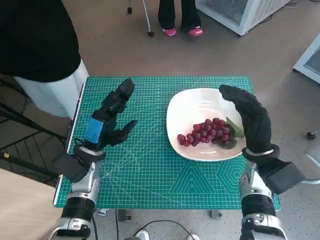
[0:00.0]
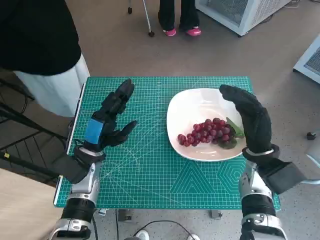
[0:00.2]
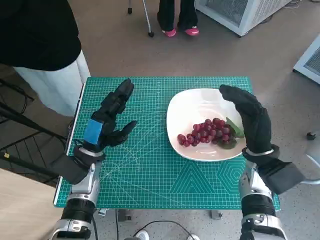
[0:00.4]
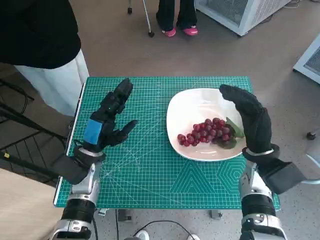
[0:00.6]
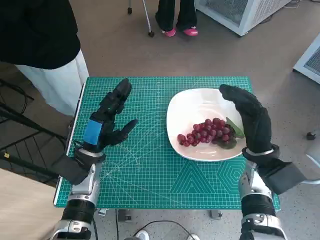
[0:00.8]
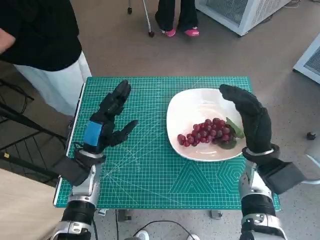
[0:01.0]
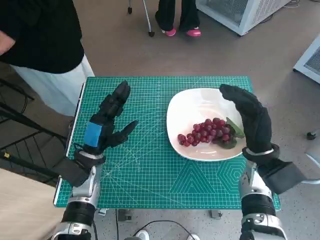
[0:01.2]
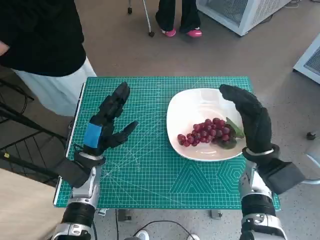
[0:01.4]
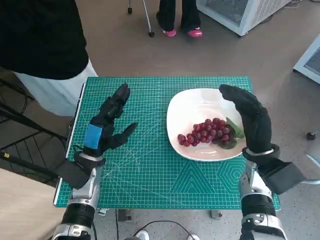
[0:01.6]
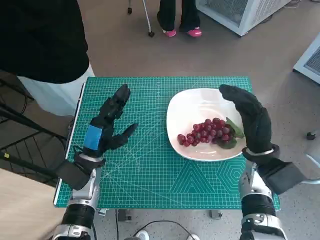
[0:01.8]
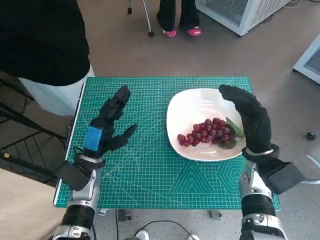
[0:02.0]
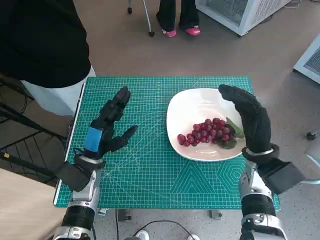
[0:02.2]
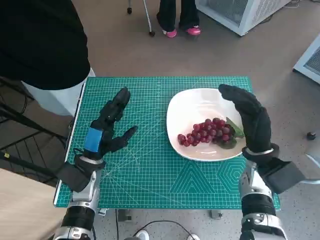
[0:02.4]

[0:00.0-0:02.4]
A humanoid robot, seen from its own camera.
Task of the whole recording: Pick up the grapes and put them on the plate.
0:00.0 to 0:01.2: The two hands keep their place.
0:01.2 to 0:02.4: Neither hand changes place.

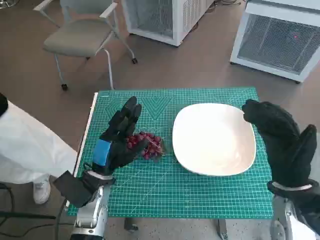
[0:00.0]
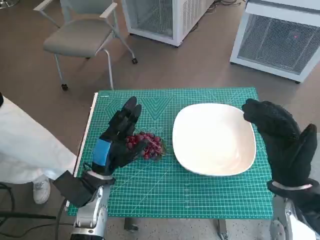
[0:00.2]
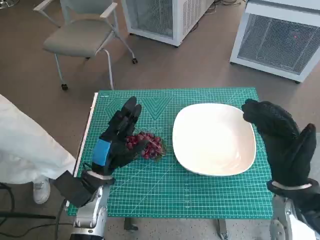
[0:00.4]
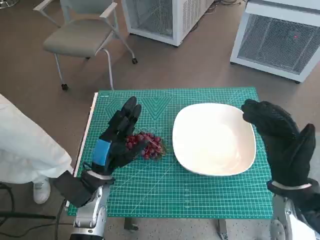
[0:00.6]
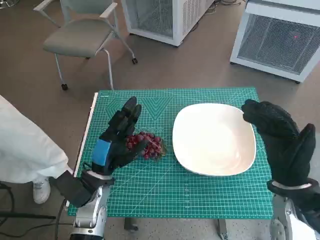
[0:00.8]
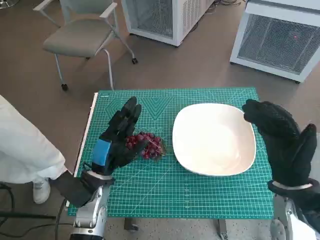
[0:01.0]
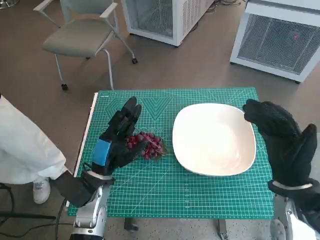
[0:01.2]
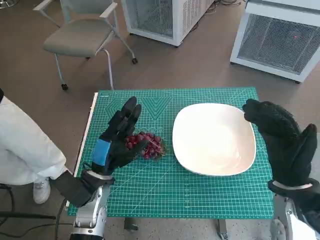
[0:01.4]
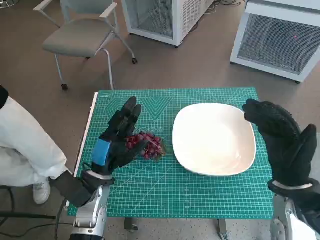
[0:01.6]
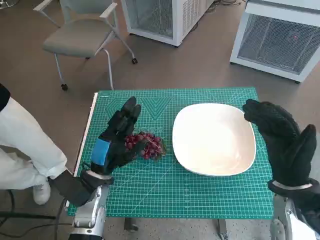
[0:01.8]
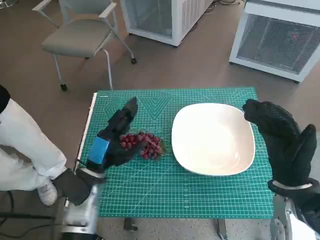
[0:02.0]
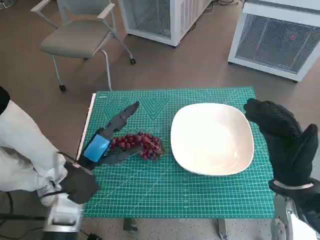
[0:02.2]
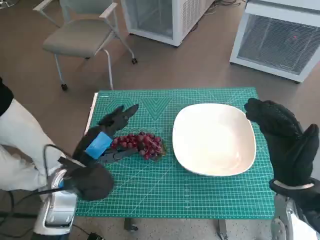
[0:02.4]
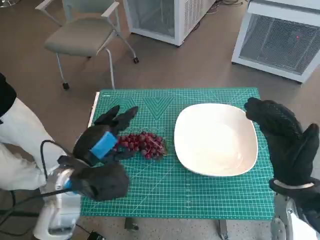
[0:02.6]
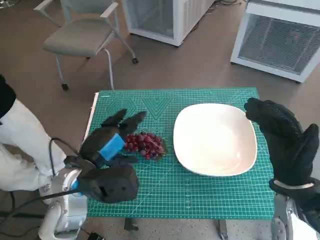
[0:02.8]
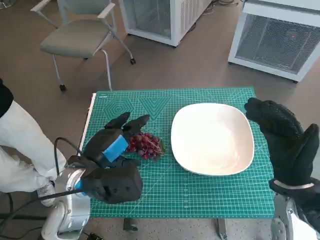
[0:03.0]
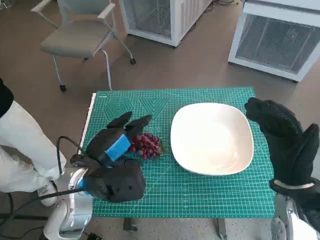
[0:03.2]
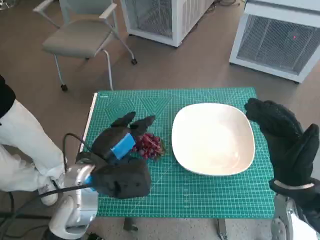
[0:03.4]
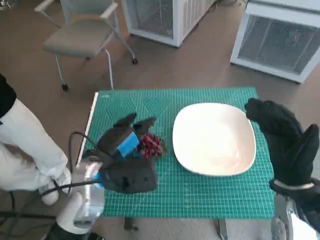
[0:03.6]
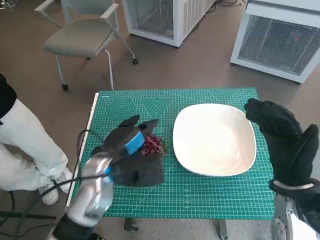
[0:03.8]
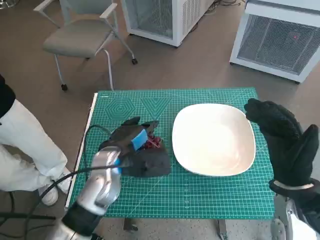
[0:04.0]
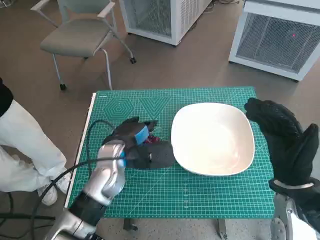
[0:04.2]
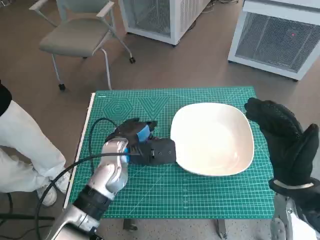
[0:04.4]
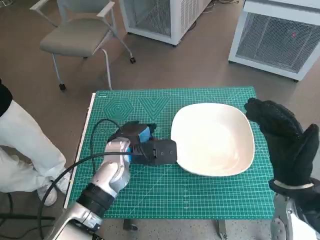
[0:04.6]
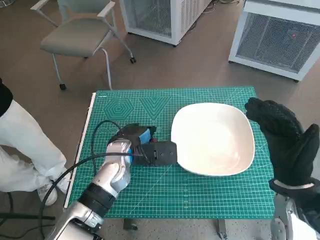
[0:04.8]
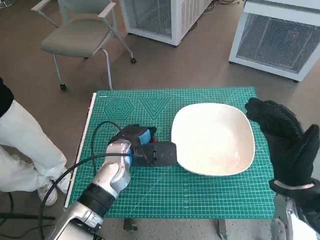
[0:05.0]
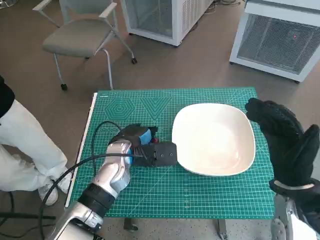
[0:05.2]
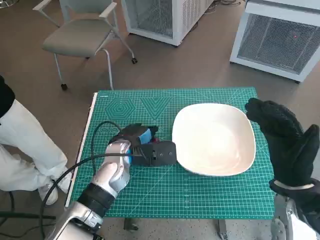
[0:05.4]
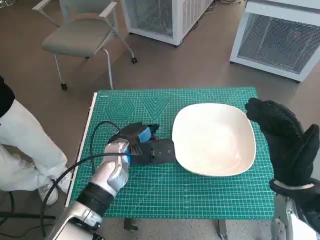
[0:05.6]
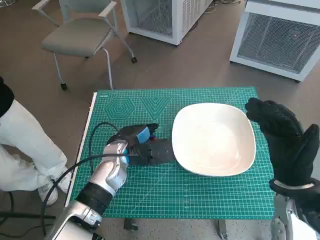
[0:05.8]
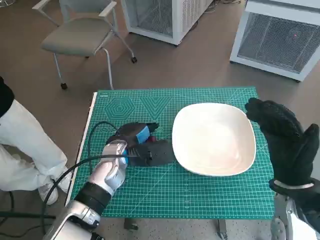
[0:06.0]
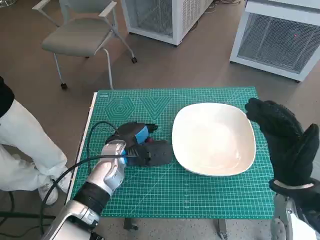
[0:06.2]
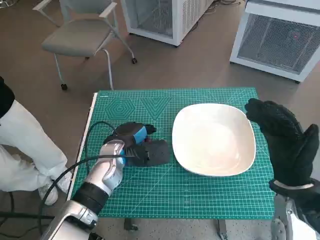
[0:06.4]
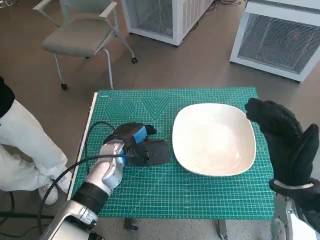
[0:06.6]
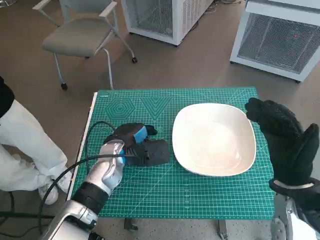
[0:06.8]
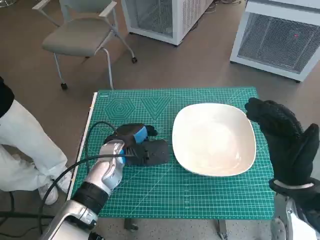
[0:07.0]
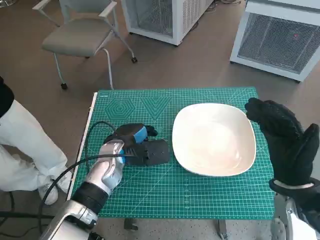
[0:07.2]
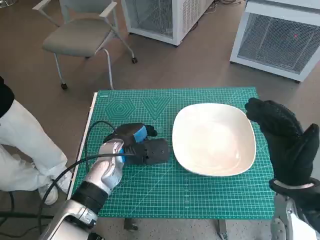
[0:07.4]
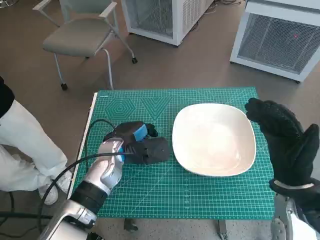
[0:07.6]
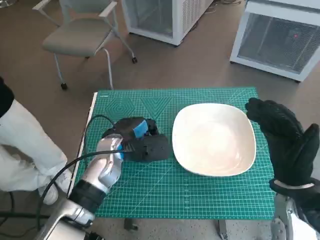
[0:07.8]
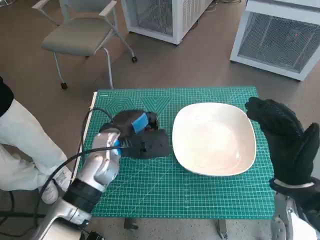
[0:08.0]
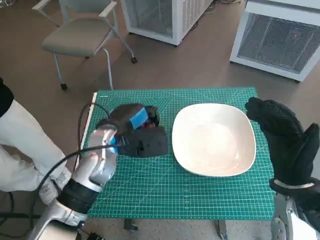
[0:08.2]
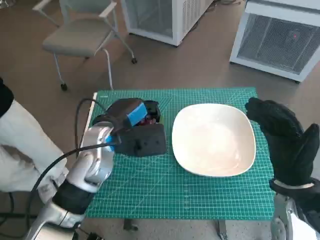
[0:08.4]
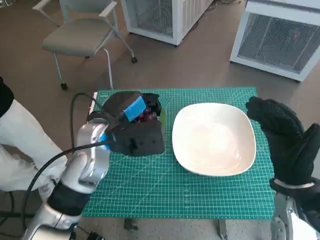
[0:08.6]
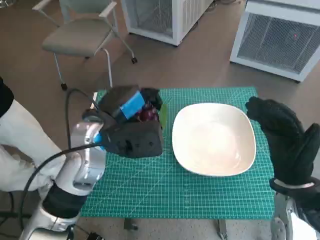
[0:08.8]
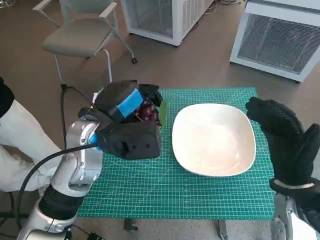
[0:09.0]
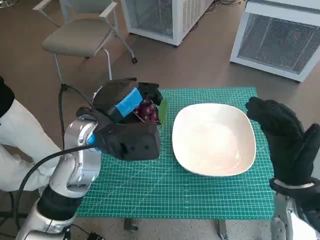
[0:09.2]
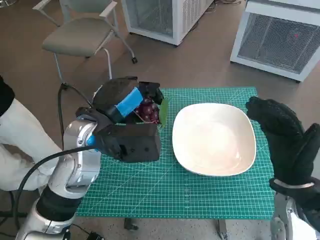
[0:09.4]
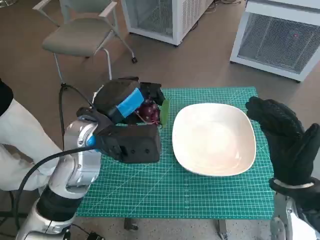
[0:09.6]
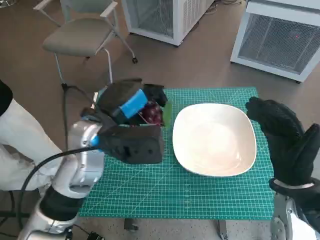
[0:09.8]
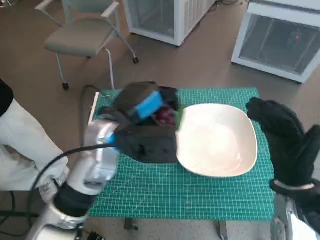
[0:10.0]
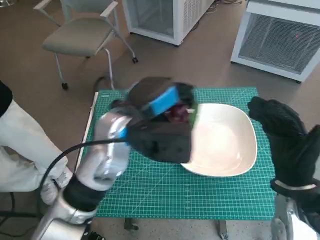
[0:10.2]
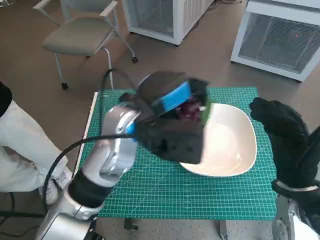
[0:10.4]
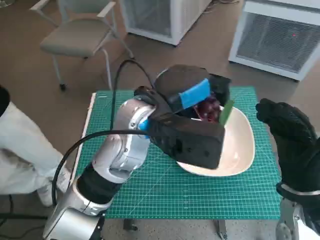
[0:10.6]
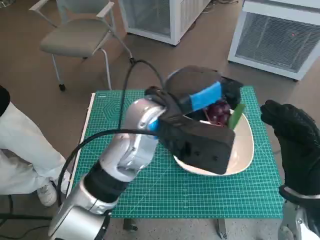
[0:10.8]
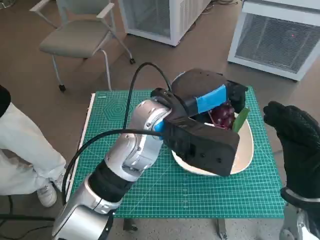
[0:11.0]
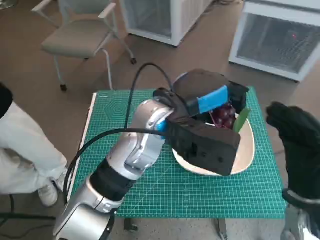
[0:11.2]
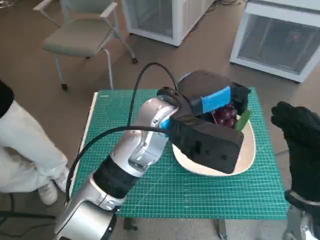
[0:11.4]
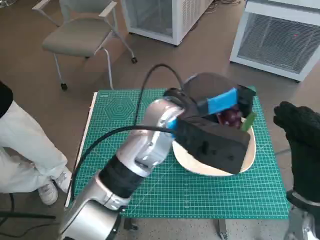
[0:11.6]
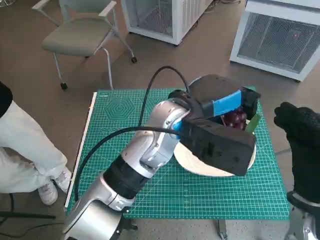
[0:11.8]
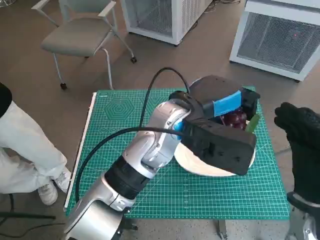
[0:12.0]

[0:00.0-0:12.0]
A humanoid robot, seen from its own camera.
Task of the whole recording: Pick up the grapes and put them on the plate.
Step, 0:00.0 to 0:07.2: Grasp the grapes with left hand.
0:01.6 to 0:03.0: The left hand travels upward by about 10 cm.
0:03.0 to 0:04.4: The left hand travels forward by about 10 cm.
0:04.4 to 0:06.0: The hands stay close to where they were, moving slightly.
0:06.0 to 0:07.6: Neither hand changes place.
0:07.6 to 0:09.0: The left hand goes roughly 10 cm upward.
0:09.0 to 0:10.4: The left hand heads to the right, covering approximately 5 cm.
0:10.4 to 0:12.0: The left hand is displaced to the right by about 5 cm.

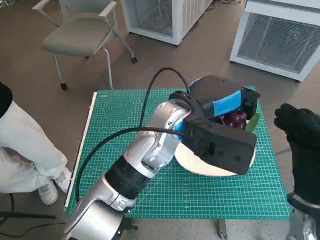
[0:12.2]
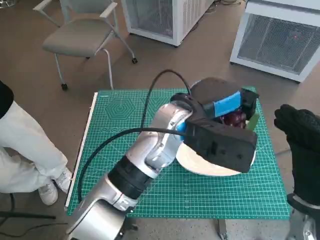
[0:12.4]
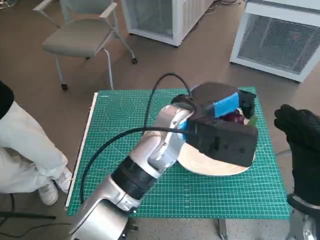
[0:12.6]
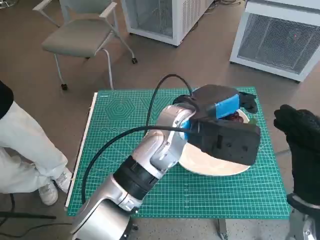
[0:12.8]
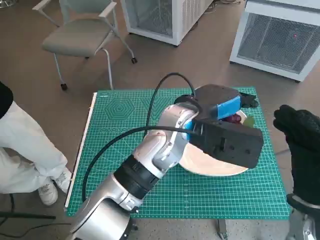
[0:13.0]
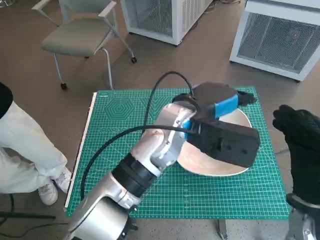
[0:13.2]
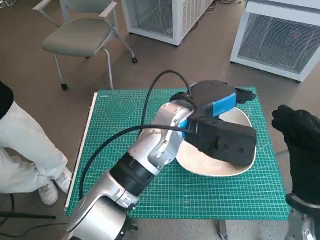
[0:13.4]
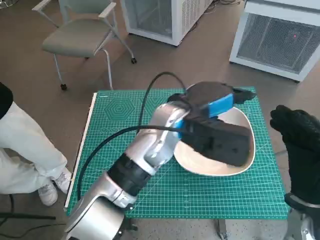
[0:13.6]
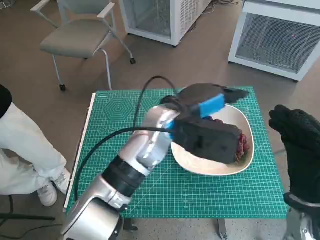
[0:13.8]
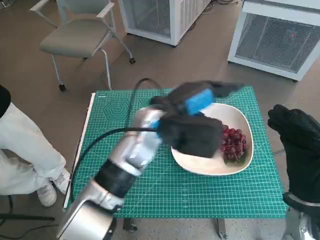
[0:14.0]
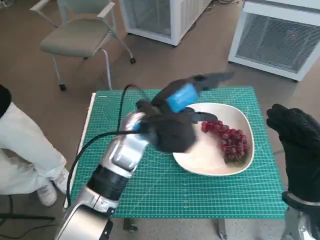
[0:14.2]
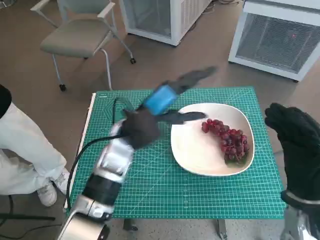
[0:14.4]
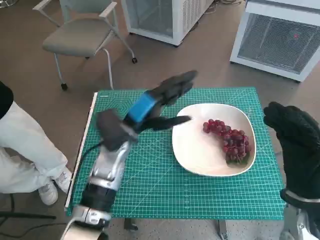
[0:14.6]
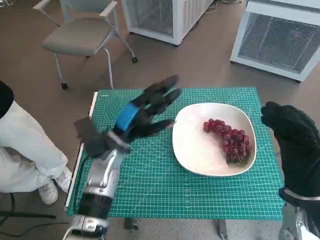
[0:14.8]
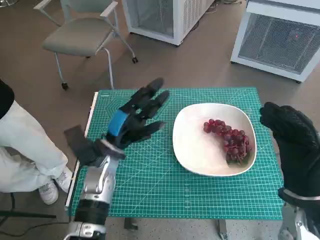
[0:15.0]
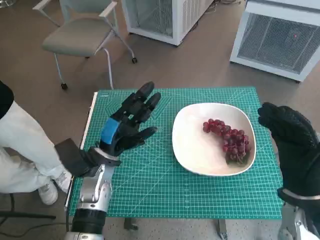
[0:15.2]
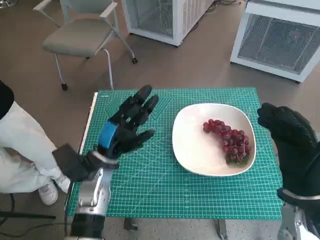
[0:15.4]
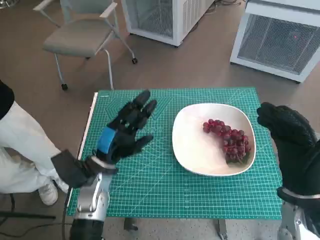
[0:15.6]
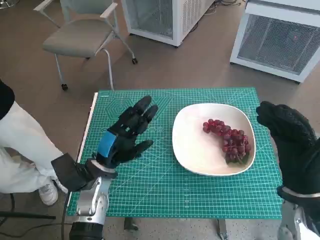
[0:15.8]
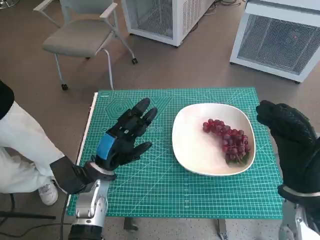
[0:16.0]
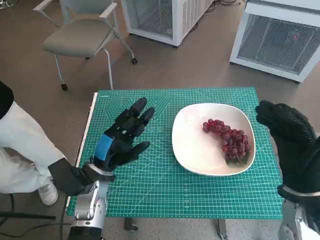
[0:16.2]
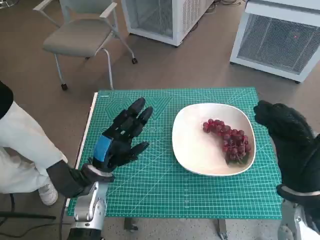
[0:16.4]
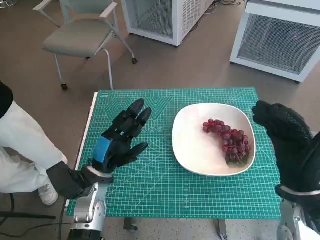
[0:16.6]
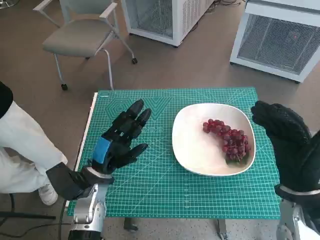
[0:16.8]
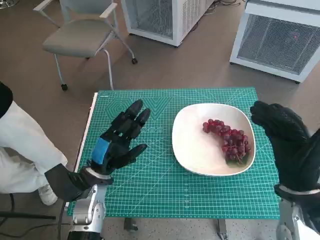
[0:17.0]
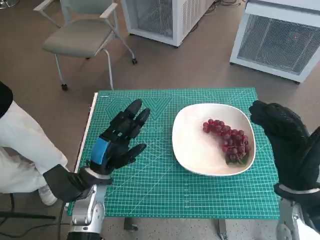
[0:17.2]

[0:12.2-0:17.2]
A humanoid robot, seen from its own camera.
Task of the whole recording: Pick up the grapes and put them on the plate.
0:12.2 to 0:13.8: There are only small adjustments of the hands.
0:13.8 to 0:15.6: The left hand moves to the left and downward, roughly 20 cm.
0:15.6 to 0:17.2: The hands move only a little.

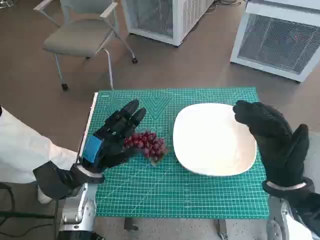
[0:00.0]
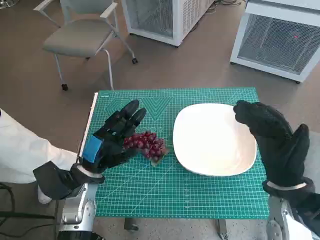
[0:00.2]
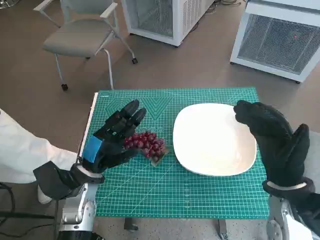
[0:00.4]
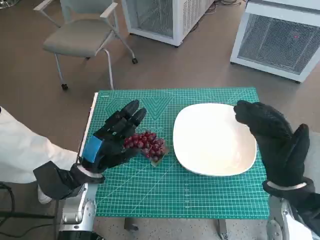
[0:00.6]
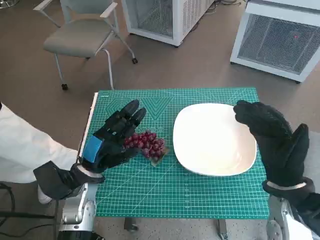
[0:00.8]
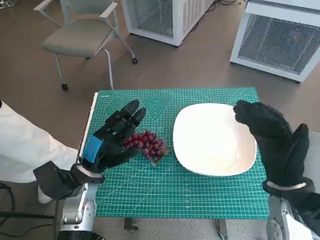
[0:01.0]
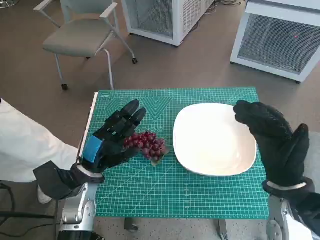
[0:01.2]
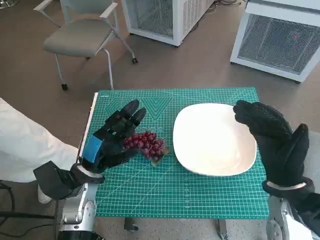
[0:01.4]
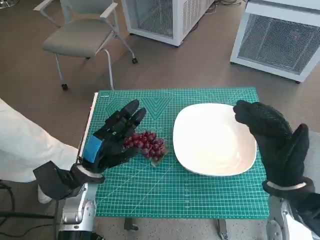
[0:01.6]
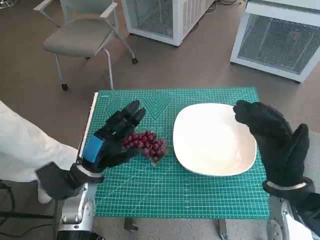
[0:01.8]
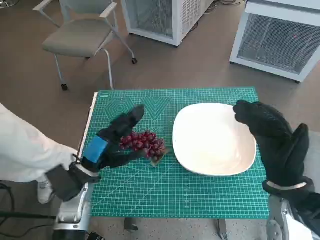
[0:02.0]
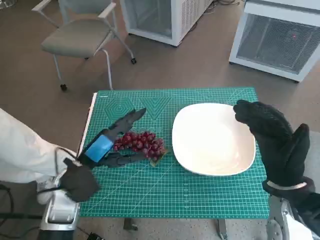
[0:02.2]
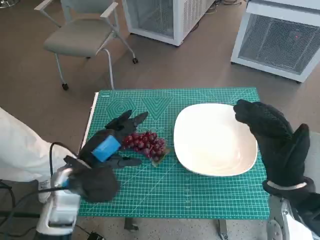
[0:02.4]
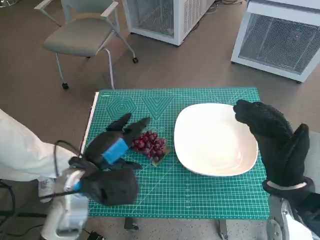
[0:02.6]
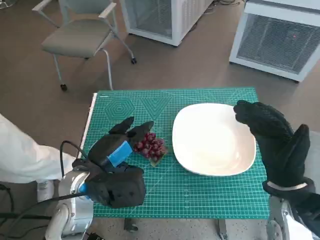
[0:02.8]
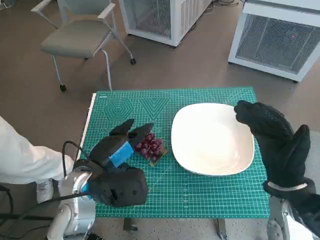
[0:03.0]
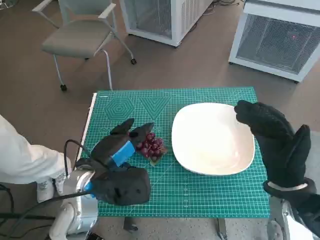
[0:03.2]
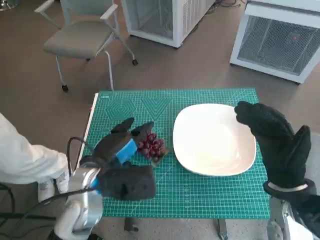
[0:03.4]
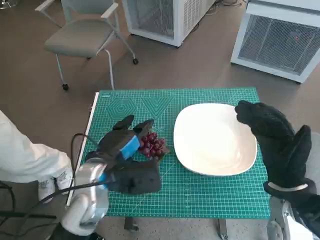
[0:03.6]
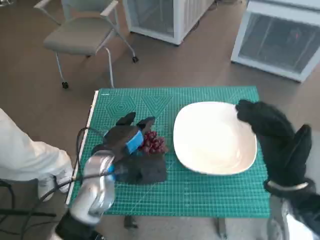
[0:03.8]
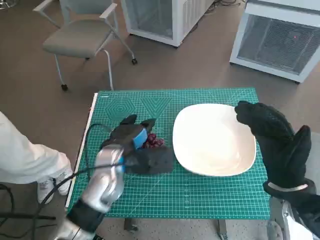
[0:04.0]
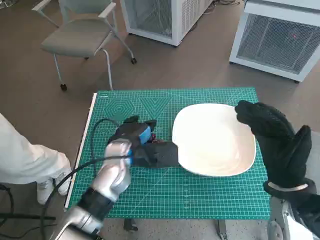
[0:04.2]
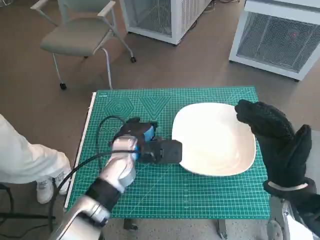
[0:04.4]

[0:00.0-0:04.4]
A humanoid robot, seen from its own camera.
Task of the whole recording: Pick up the grapes and put them on the plate.
0:01.4 to 0:03.0: The left hand is displaced upward by approximately 5 cm.
0:03.0 to 0:04.4: The left hand goes roughly 10 cm forward and to the right.
